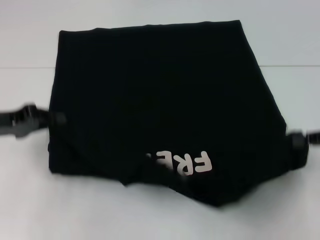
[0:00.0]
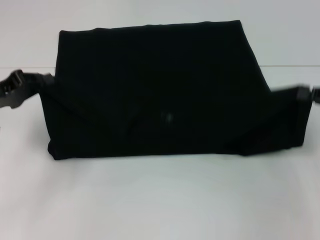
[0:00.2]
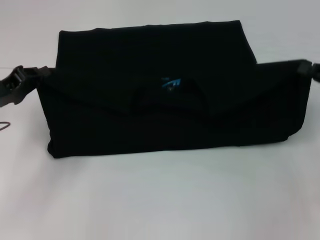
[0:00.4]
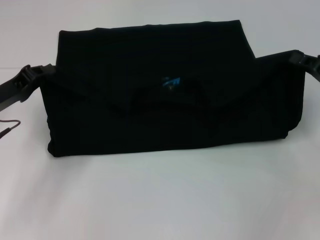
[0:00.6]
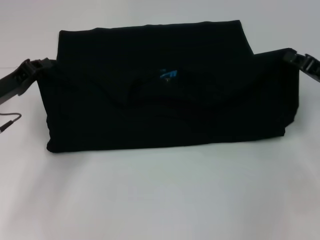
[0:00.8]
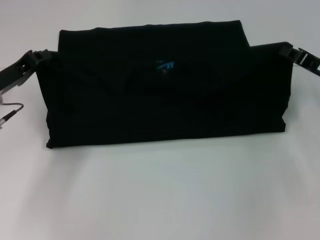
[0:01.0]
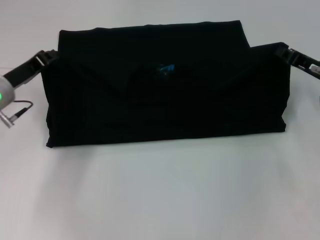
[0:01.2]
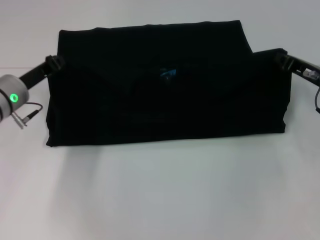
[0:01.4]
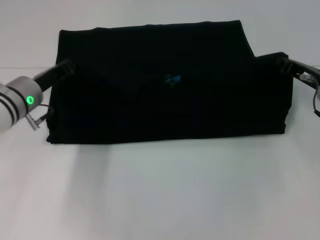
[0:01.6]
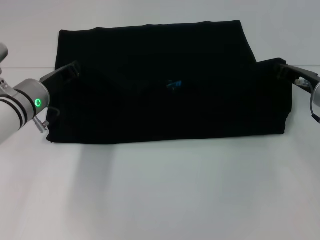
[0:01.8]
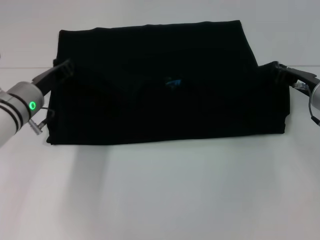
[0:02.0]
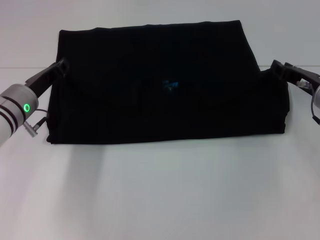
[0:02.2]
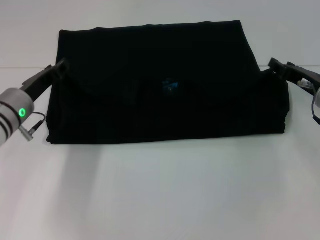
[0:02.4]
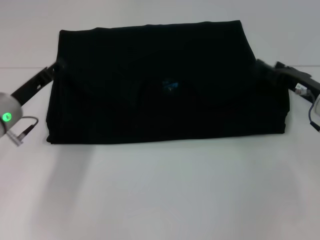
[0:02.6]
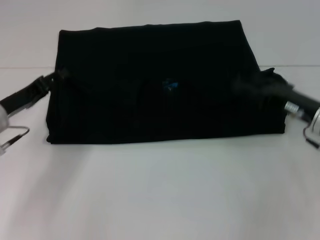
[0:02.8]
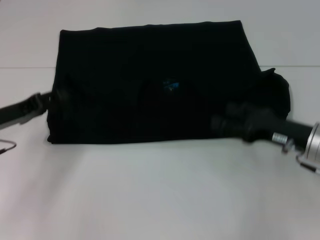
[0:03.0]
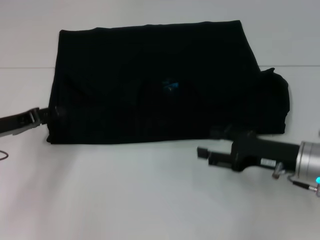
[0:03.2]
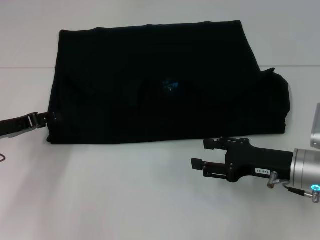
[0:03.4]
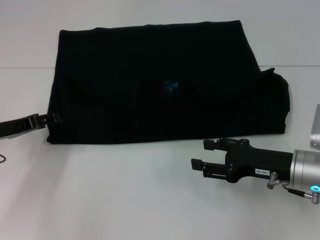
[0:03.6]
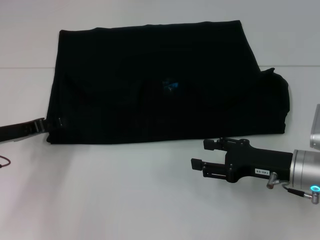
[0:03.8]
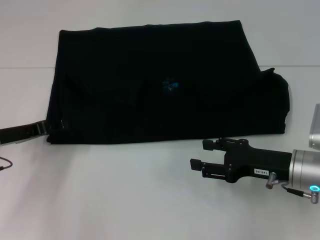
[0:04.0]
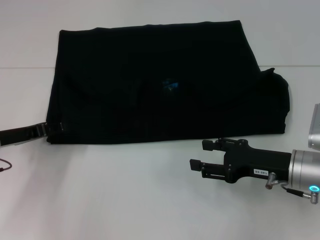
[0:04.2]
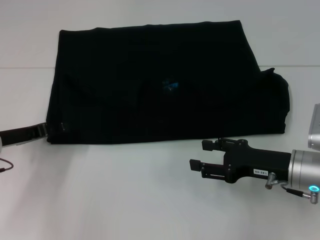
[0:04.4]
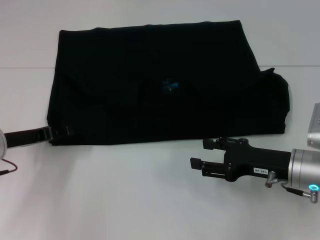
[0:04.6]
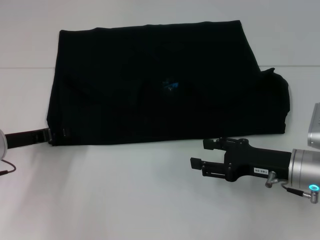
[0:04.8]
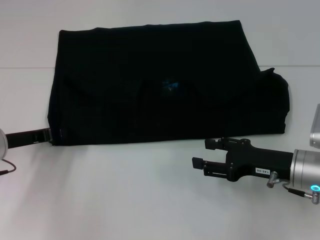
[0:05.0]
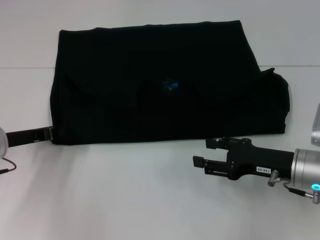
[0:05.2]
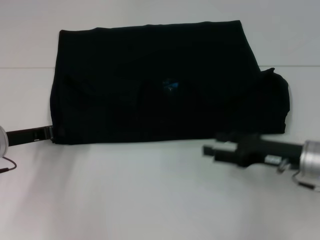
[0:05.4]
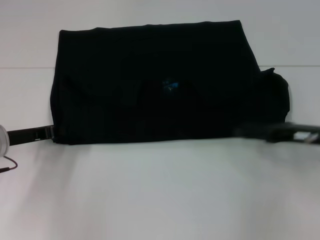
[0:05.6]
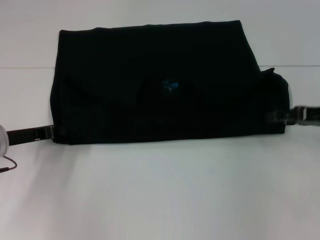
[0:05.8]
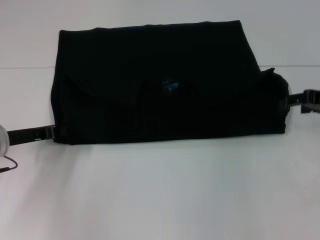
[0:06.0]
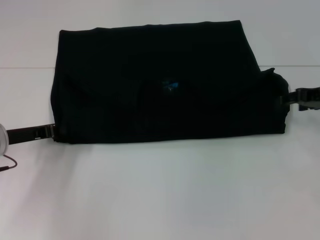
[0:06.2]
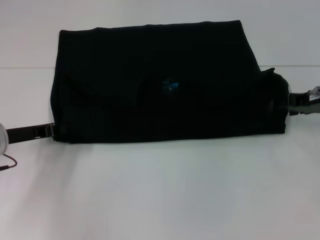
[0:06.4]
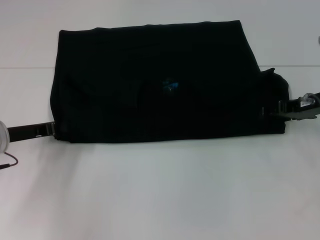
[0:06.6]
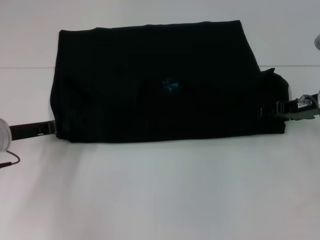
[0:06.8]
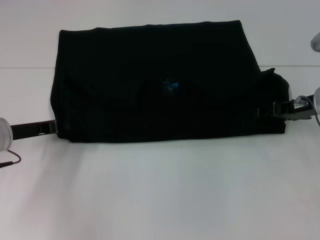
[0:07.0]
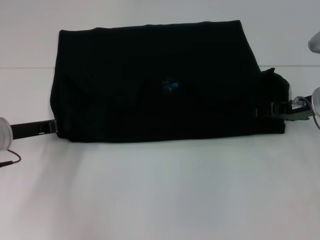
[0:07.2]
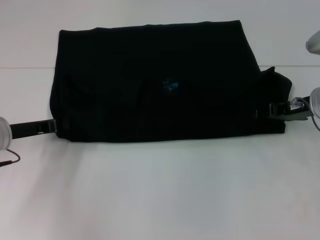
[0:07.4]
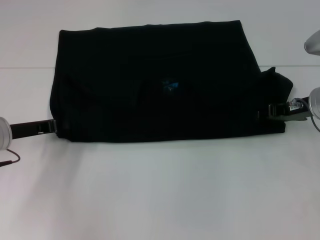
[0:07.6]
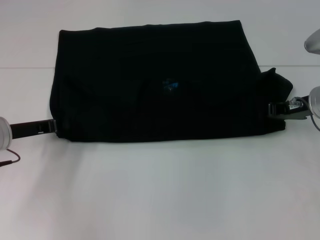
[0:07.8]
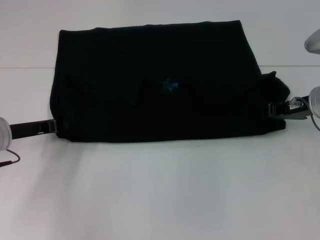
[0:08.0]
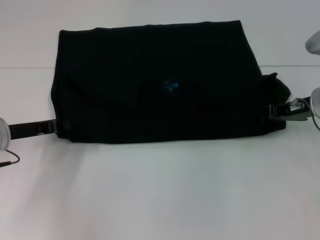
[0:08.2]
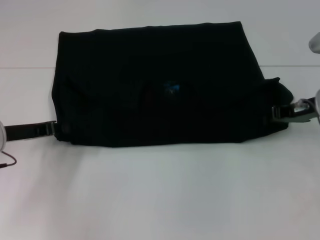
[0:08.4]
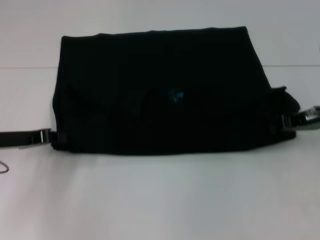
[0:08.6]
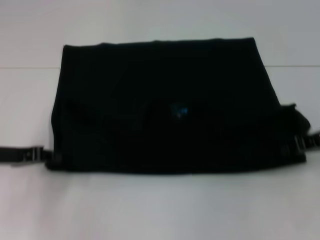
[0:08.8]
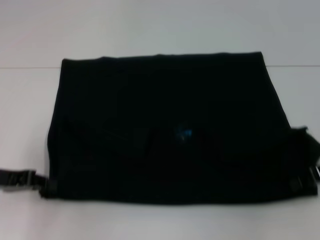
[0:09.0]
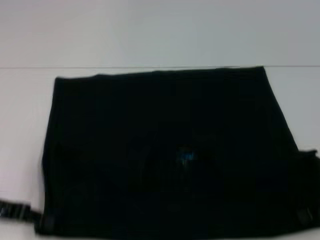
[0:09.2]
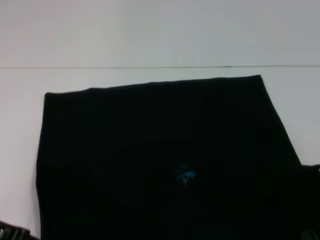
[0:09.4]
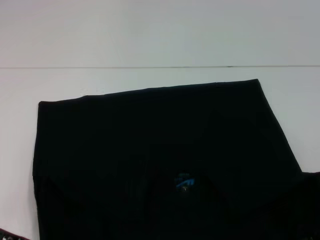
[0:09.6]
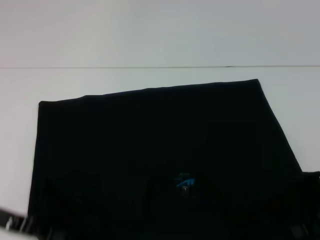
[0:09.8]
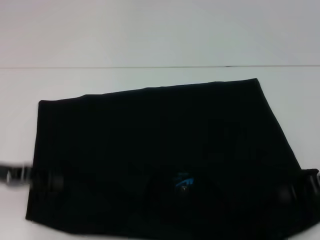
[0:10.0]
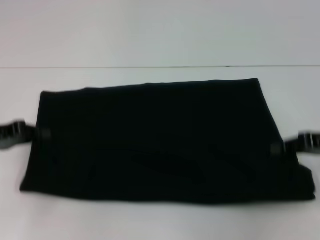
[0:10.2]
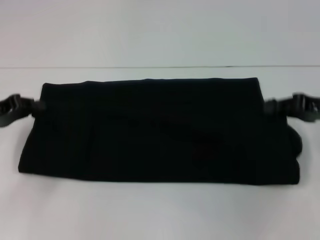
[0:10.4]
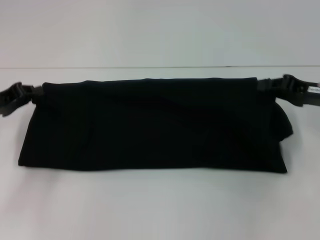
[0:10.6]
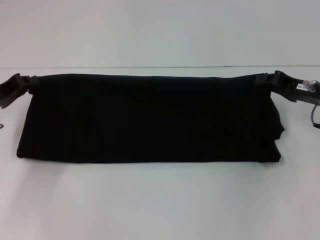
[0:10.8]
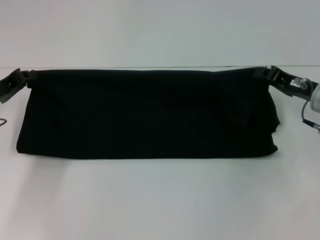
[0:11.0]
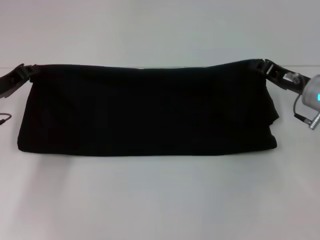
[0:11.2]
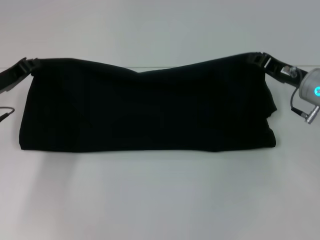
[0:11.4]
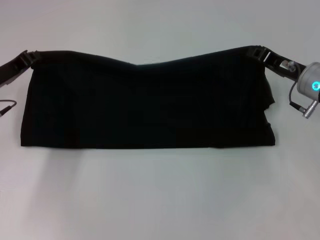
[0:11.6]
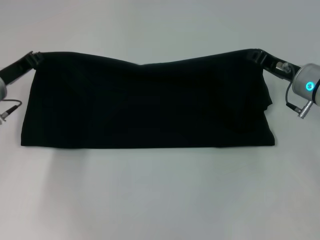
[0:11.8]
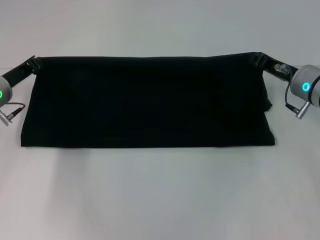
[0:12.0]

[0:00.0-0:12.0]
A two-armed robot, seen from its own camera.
Step, 0:00.0 to 0:02.0: Fold the clothes with your left hand.
Step, 0:00.0 to 0:02.0: Fold the clothes with your right hand.
Step, 0:02.2 to 0:09.2: Pull the clothes with your left hand.
Step, 0:02.2 to 0:09.2: Pull the clothes with your right hand.
0:00.0 to 0:01.6: The left gripper travels to the right and forward by some 10 cm, while the right gripper travels forward, to the left and downward by approximately 15 cm.
0:01.6 to 0:03.0: The right gripper is displaced backward by about 10 cm, and opens its fingers. The left gripper moves to the left and backward, roughly 10 cm, and opens its fingers.
0:03.0 to 0:04.4: The grippers stay close to where they were, moving slightly.
0:04.4 to 0:06.0: The left gripper closes; the right gripper travels to the right, upward and forward by roughly 15 cm.
0:06.0 to 0:07.6: The right gripper moves to the left, roughly 5 cm.
0:07.6 to 0:09.0: The right gripper moves backward and to the right, roughly 10 cm, and closes. Meanwhile the left gripper shifts roughly 5 cm backward.
0:09.0 to 0:10.4: The left gripper ends up roughly 5 cm from where it was.
0:10.4 to 0:12.0: The left gripper moves forward and to the right, roughly 10 cm; the right gripper shifts about 10 cm to the left and forward.

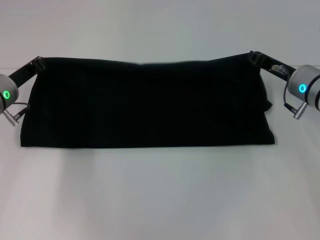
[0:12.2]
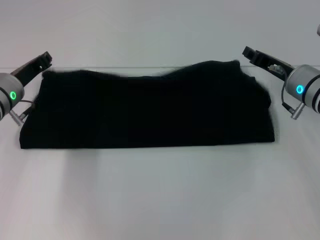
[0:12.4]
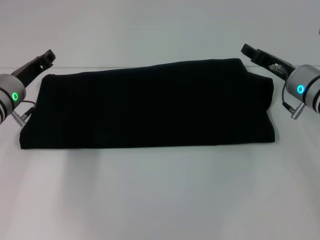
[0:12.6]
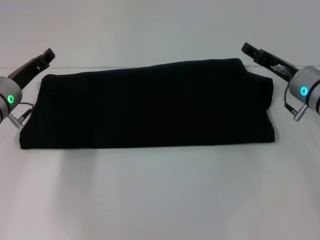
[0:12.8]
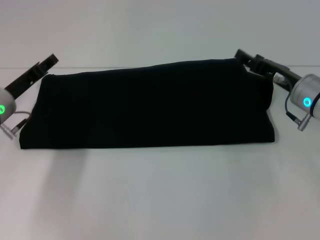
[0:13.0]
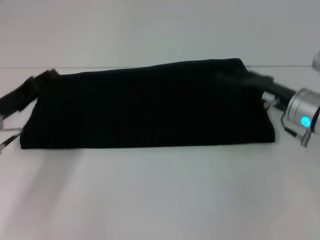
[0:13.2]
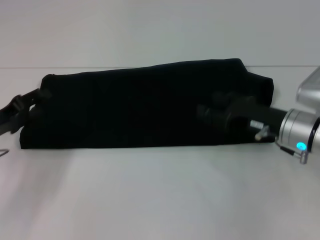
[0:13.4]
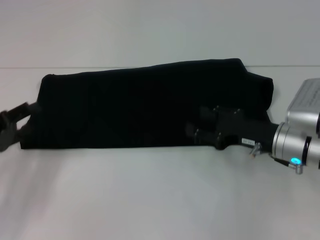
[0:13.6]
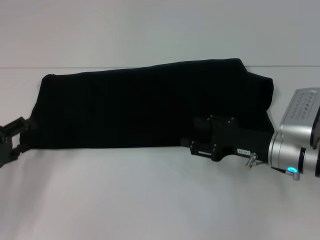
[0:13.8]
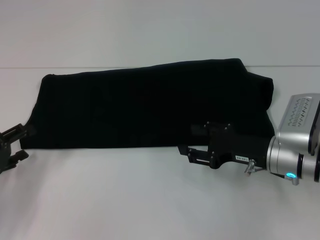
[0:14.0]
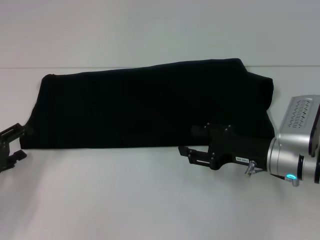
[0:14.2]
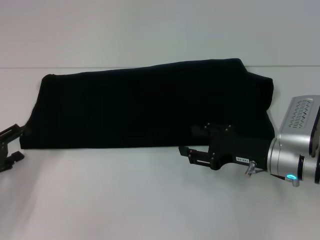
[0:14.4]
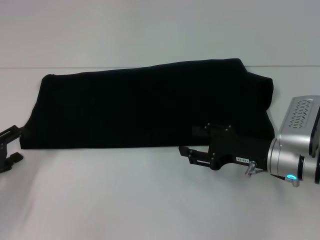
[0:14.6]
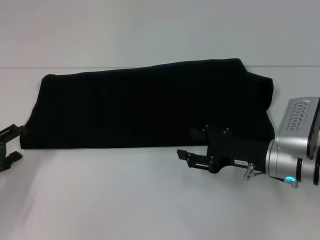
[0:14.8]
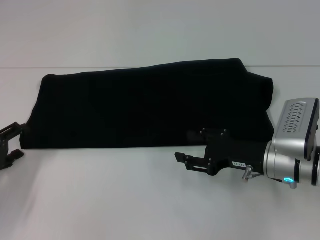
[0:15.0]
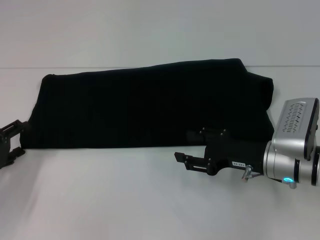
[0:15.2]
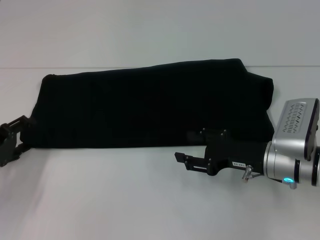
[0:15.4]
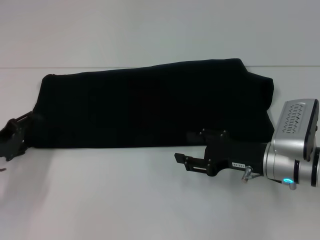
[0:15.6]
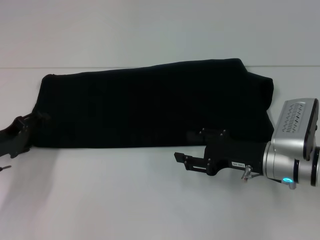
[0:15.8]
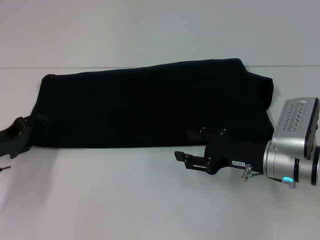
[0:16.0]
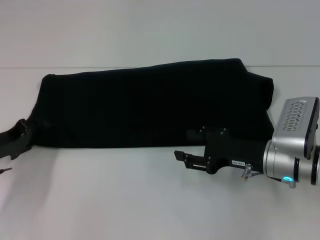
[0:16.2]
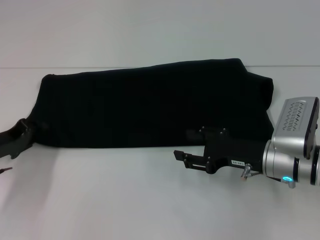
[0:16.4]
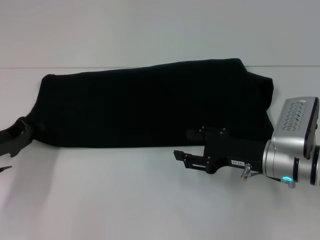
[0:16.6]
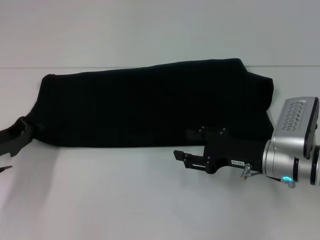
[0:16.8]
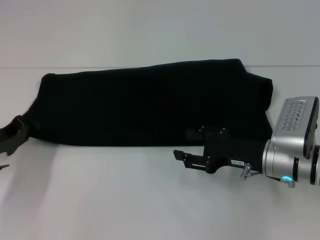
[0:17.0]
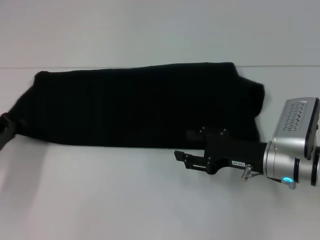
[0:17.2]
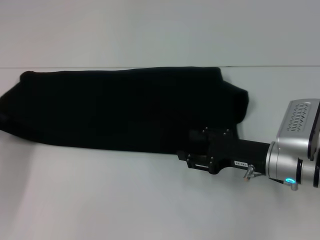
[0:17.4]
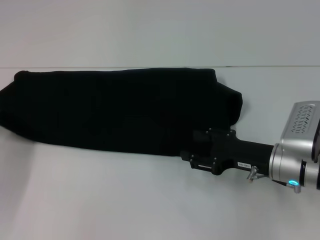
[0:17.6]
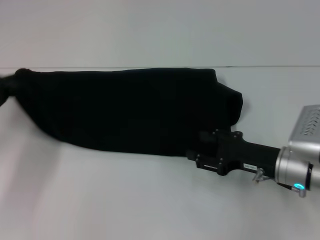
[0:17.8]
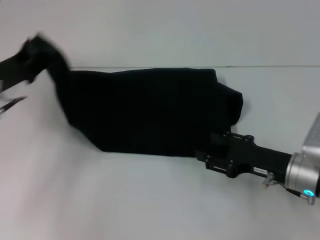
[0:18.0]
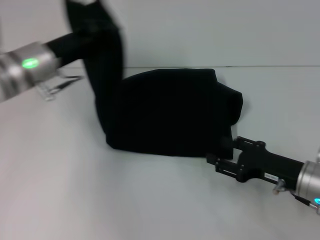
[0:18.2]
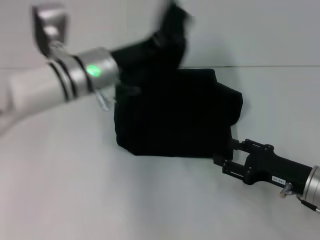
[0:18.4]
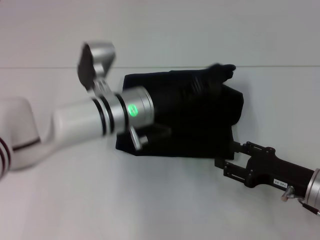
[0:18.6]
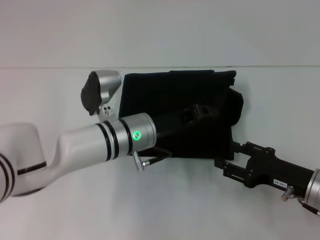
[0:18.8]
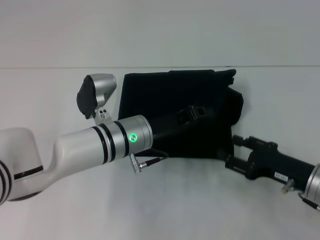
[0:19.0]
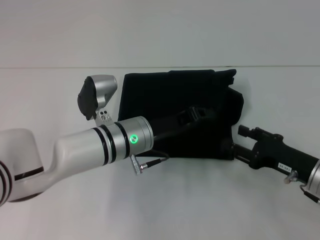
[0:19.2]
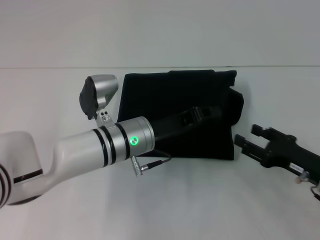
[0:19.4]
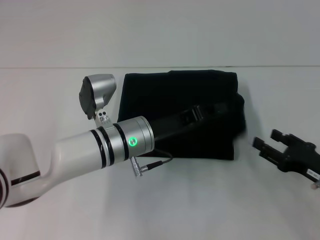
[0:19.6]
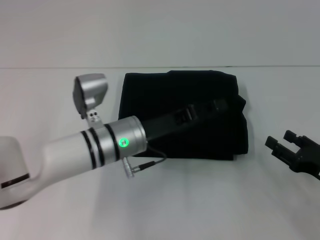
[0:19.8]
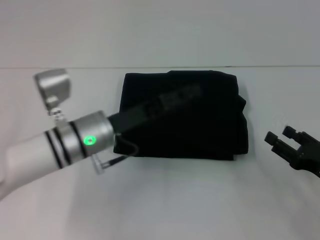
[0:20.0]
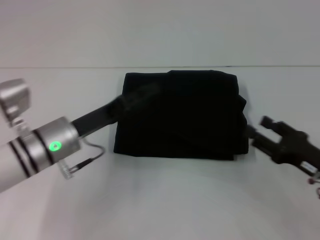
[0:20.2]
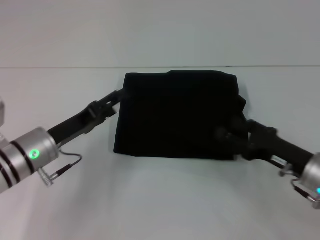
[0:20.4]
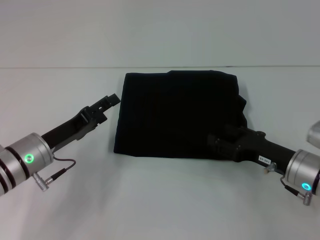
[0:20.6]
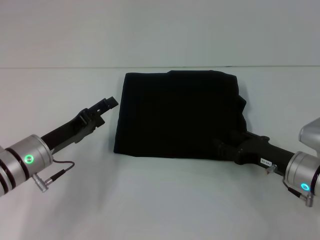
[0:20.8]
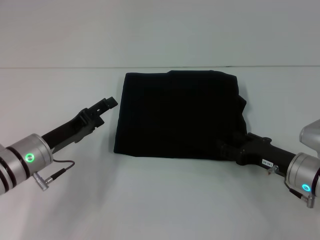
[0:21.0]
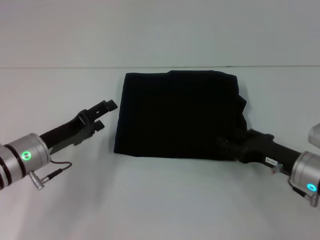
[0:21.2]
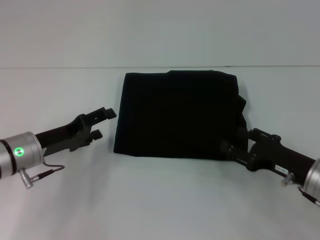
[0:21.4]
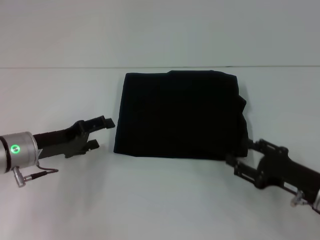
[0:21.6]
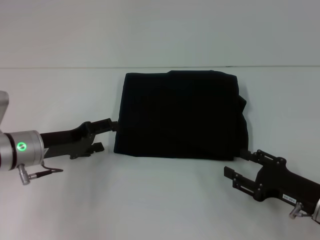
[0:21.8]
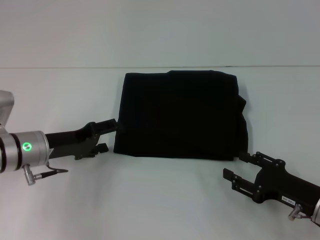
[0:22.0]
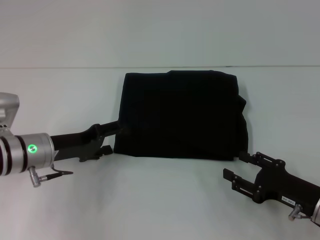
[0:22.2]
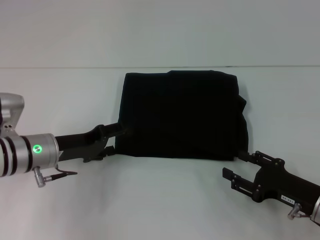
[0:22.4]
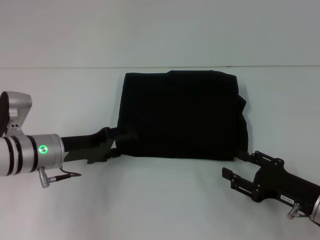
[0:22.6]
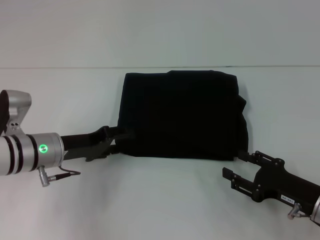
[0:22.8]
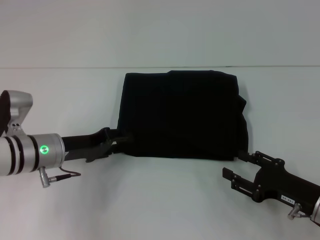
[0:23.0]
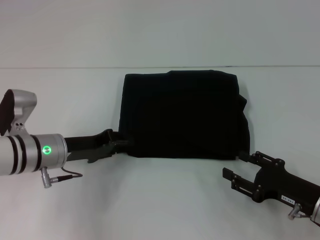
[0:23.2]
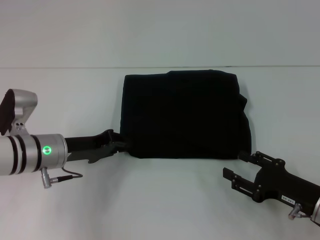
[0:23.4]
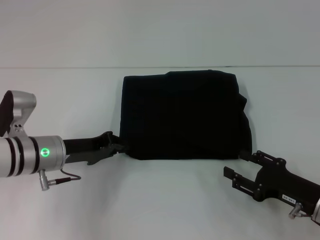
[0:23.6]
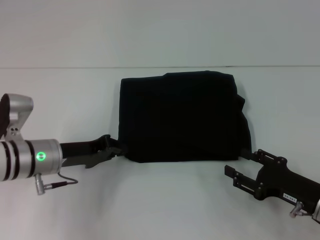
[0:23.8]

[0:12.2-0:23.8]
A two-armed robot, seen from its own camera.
Step, 0:12.2 to 0:19.6: Fold the clothes with your left hand.
0:12.2 to 0:13.6: The right gripper heads backward, covering about 10 cm, and opens. Meanwhile the left gripper shifts approximately 15 cm backward and to the left, and opens.
0:13.6 to 0:15.0: There are only small adjustments of the grippers.
0:15.0 to 0:16.6: The left gripper changes place by roughly 5 cm, and closes.
0:16.6 to 0:18.0: The left gripper shifts some 10 cm upward and forward.
0:18.0 to 0:19.4: The right gripper moves approximately 5 cm. Meanwhile the left gripper is displaced to the right by approximately 20 cm.
0:19.4 to 0:21.0: The left gripper goes some 15 cm to the left, and opens.
0:21.0 to 0:22.4: The right gripper shifts approximately 5 cm backward.
0:22.4 to 0:23.8: The left gripper closes up.
